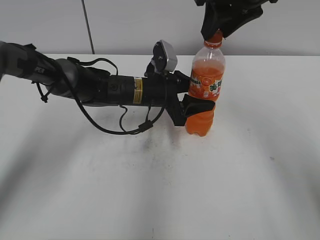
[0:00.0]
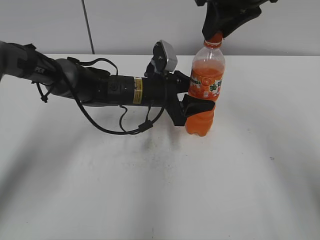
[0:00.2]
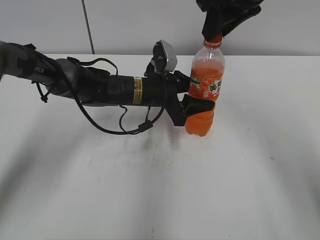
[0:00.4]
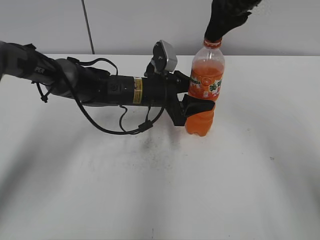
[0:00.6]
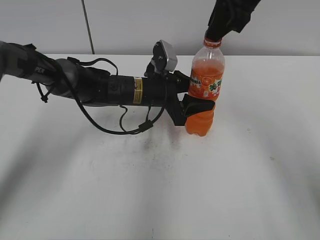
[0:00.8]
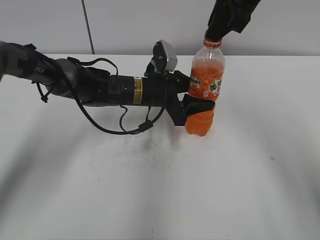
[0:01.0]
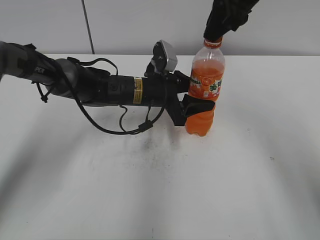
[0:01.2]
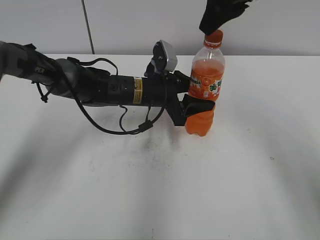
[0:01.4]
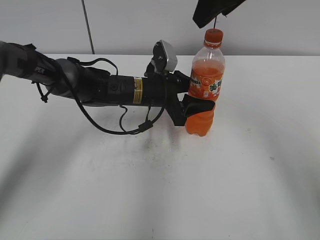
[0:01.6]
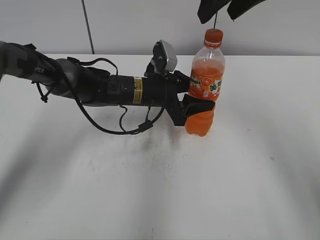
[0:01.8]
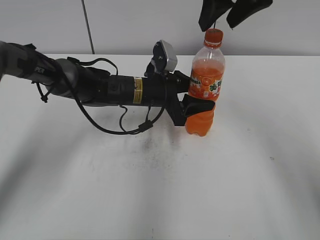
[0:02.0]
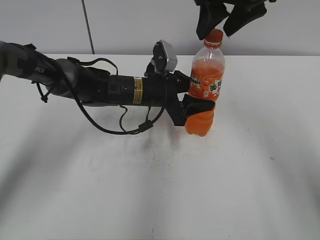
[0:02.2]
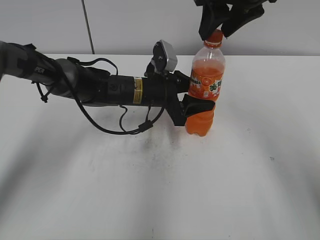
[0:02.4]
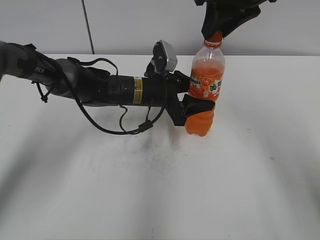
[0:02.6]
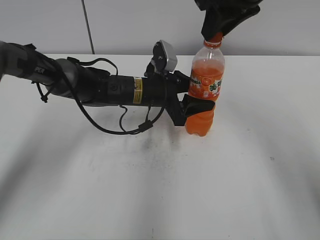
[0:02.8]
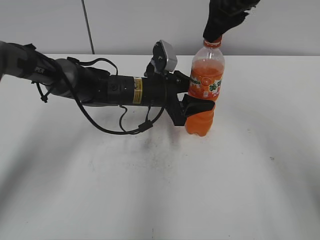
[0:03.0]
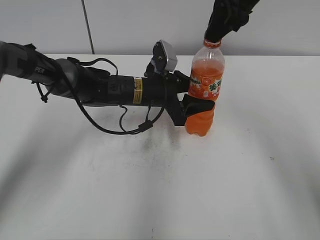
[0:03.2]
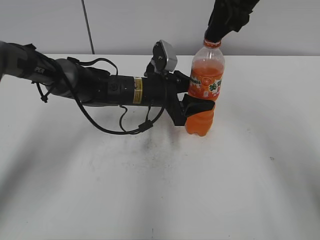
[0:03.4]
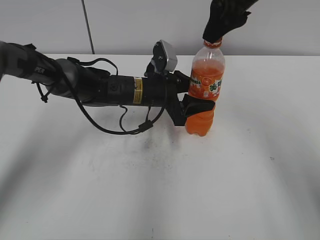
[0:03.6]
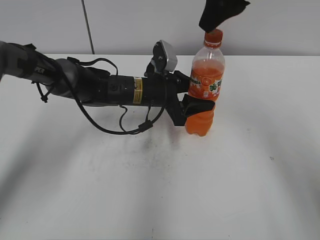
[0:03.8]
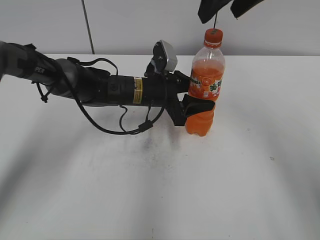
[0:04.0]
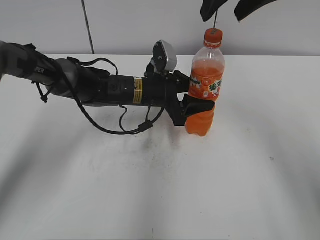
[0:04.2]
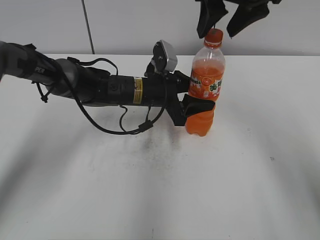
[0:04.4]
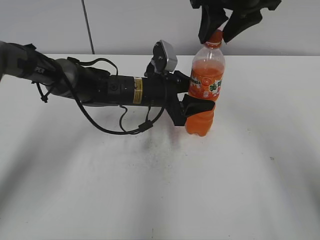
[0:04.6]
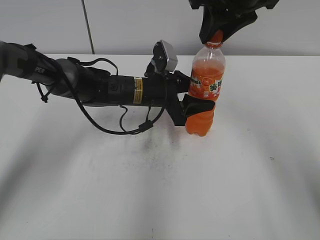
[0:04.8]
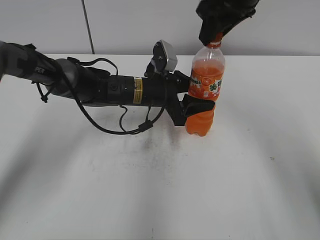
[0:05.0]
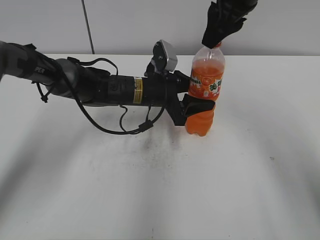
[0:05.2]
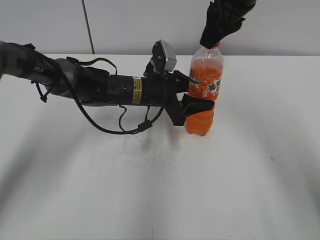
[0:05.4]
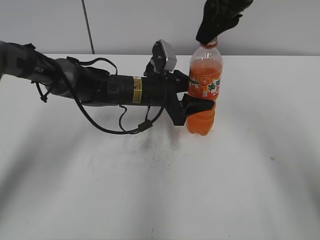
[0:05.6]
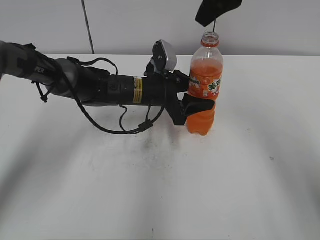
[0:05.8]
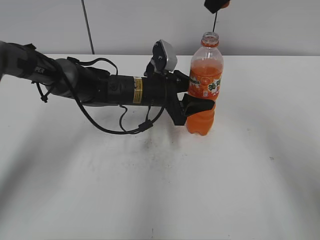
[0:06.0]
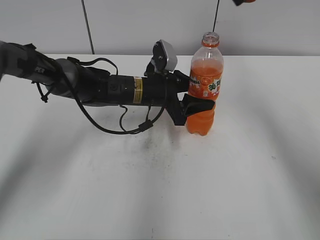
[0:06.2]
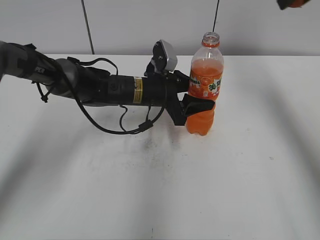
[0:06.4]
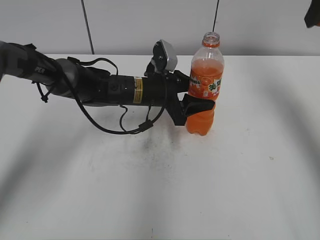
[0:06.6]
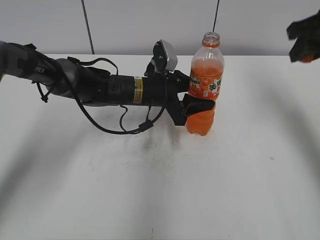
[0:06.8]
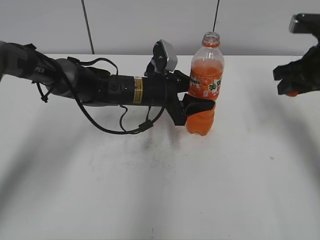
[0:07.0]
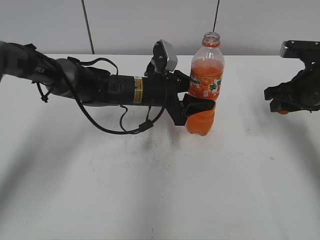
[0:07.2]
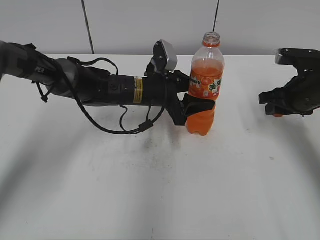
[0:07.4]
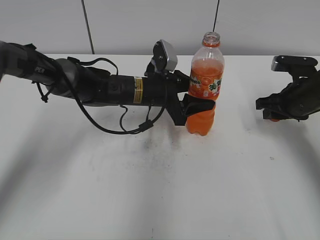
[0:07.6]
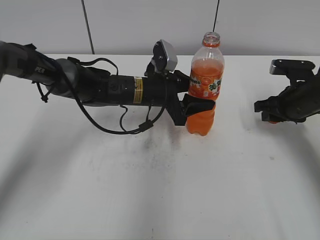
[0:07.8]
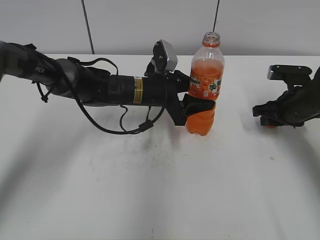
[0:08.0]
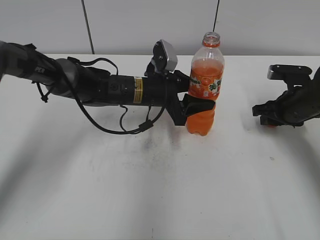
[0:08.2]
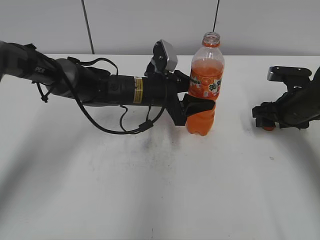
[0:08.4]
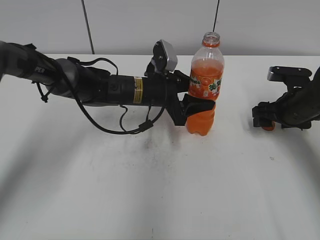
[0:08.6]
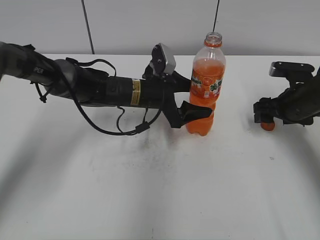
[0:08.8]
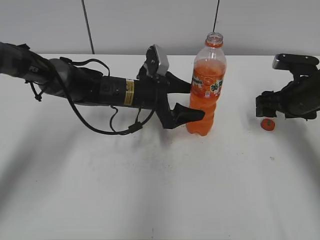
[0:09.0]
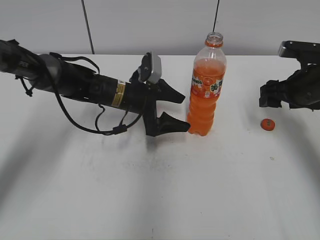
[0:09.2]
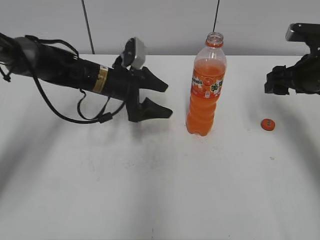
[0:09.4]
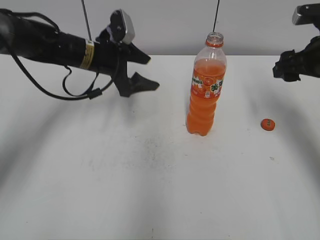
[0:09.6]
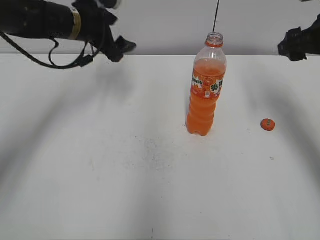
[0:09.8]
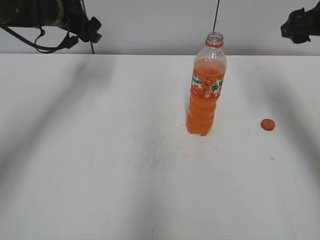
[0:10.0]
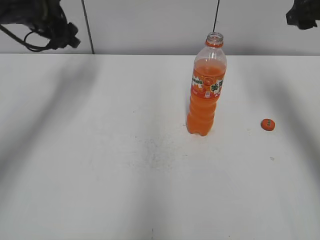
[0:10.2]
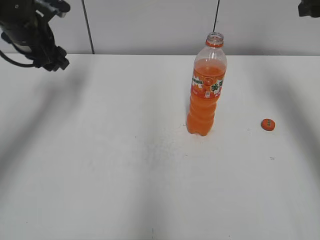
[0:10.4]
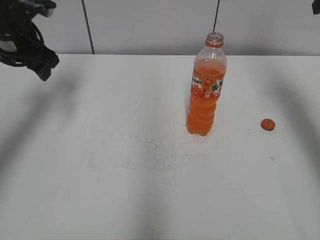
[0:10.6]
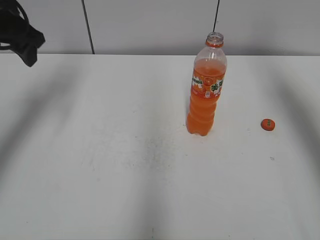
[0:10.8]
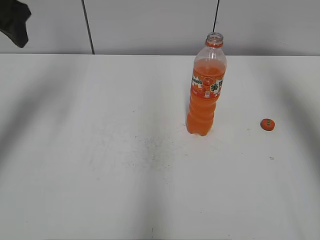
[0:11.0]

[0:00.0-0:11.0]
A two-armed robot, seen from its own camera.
0:00.0 to 0:01.6: The right gripper opens.
0:01.6 to 0:03.2: The right gripper closes its fingers.
0:03.2 to 0:04.8: The right gripper opens and closes again.
0:04.8 to 0:06.2: The right gripper is displaced upward by some 5 cm.
0:06.2 to 0:07.8: The right gripper heads downward and to the right, covering about 30 cm.
0:07.8 to 0:09.4: The right gripper shifts roughly 5 cm upward, and opens its fingers; the left gripper moves to the left, approximately 5 cm, and opens.
0:09.4 to 0:11.0: The left gripper shifts roughly 30 cm upward and to the left; the right gripper moves upward, about 20 cm.

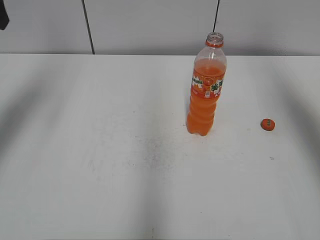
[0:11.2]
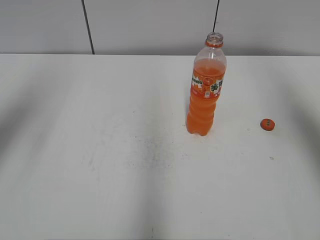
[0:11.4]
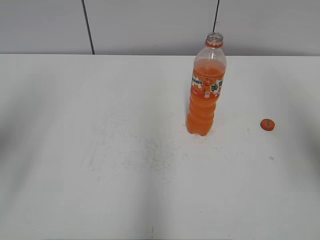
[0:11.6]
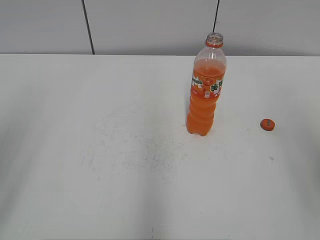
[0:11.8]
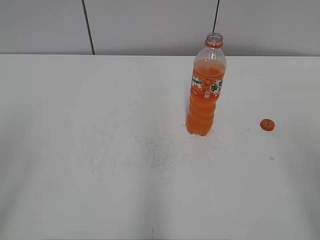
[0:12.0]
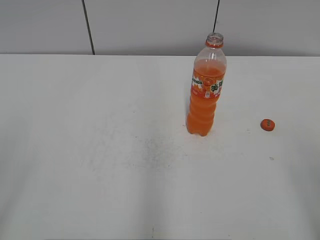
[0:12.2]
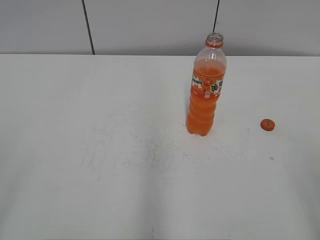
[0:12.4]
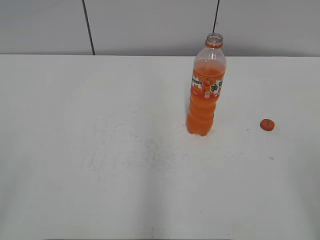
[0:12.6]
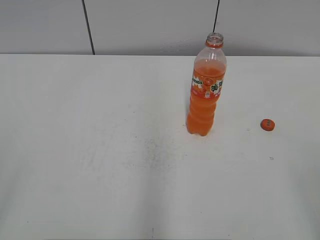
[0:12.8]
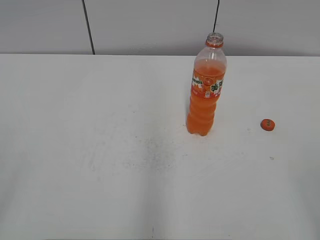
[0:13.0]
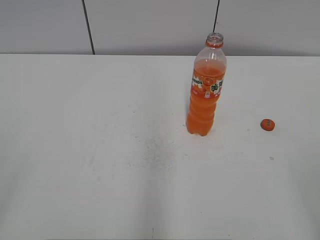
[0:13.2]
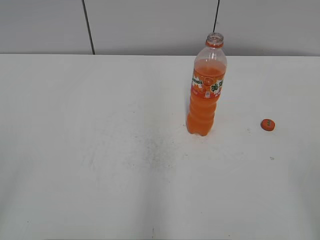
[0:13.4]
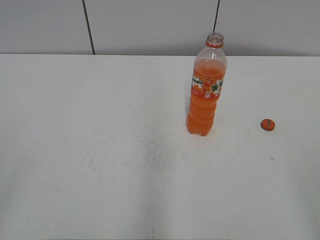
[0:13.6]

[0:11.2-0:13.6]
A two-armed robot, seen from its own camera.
0:11.2 to 0:12.4: The left gripper heads backward, covering approximately 35 cm. The right gripper goes some 30 cm backward and downward.
